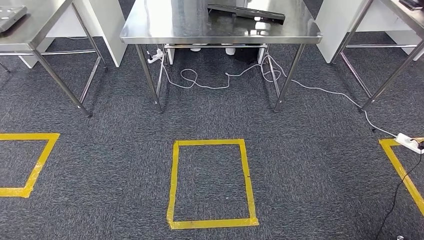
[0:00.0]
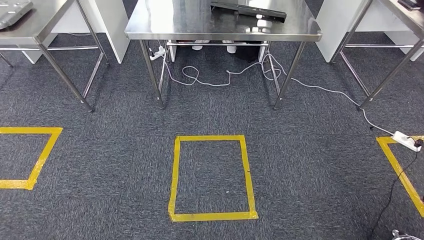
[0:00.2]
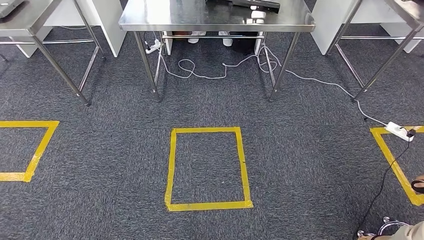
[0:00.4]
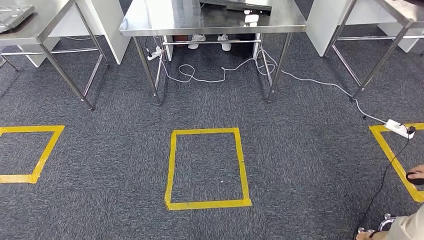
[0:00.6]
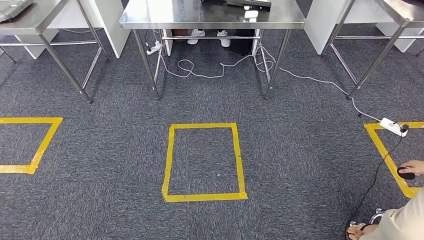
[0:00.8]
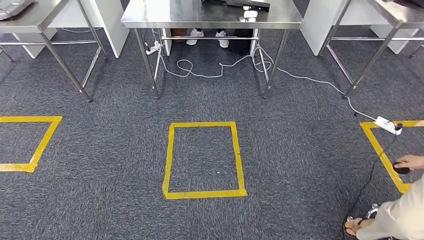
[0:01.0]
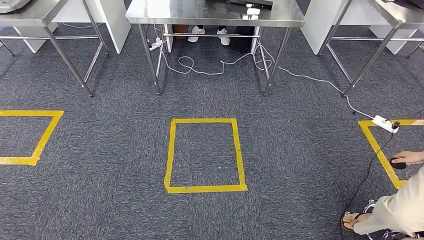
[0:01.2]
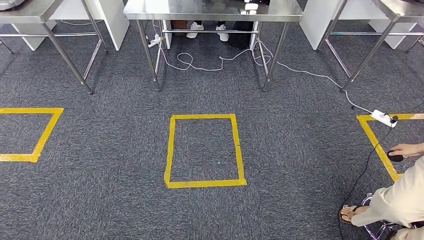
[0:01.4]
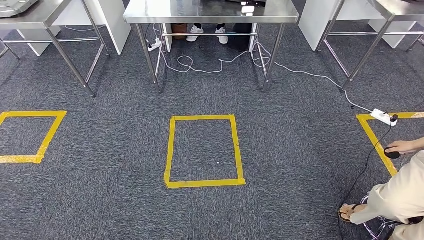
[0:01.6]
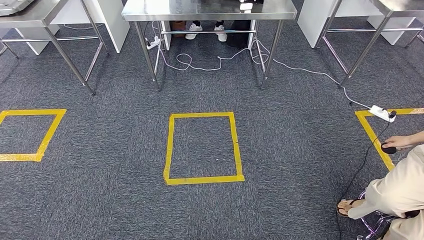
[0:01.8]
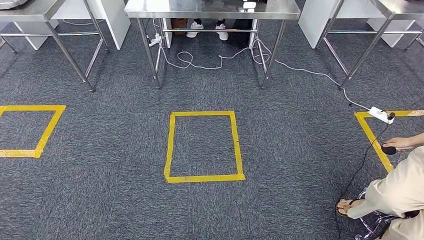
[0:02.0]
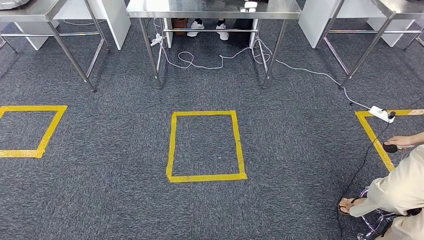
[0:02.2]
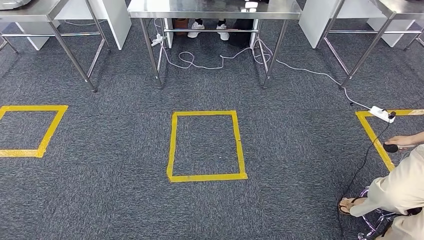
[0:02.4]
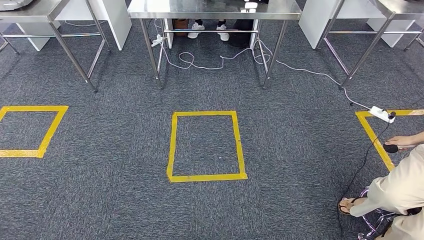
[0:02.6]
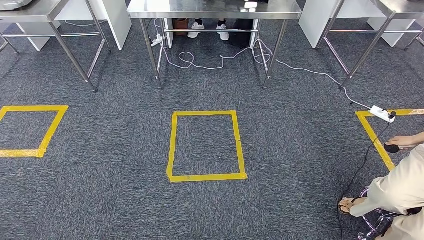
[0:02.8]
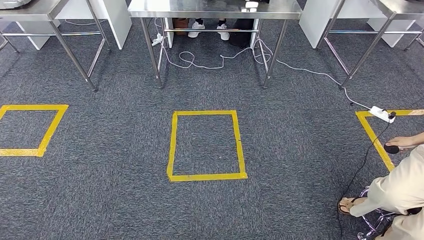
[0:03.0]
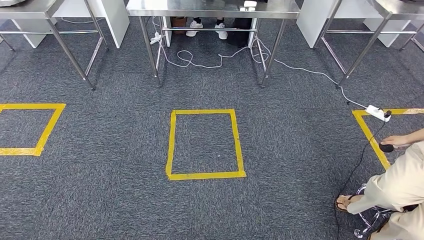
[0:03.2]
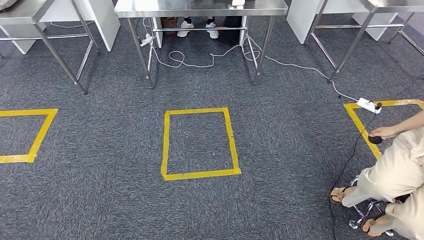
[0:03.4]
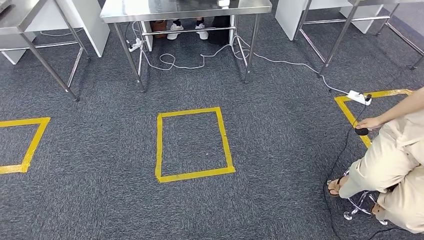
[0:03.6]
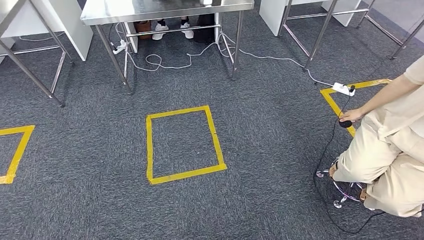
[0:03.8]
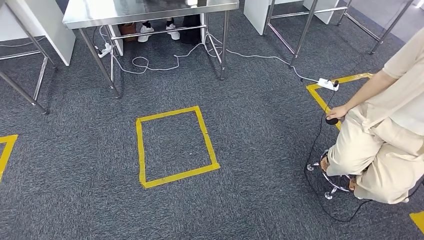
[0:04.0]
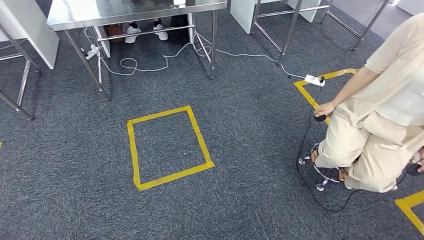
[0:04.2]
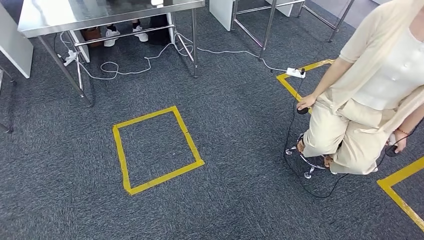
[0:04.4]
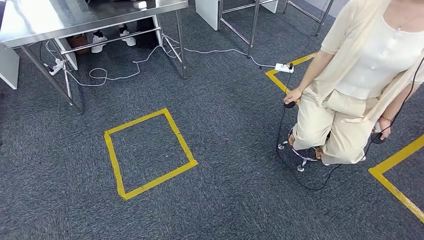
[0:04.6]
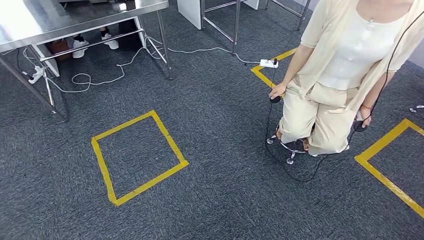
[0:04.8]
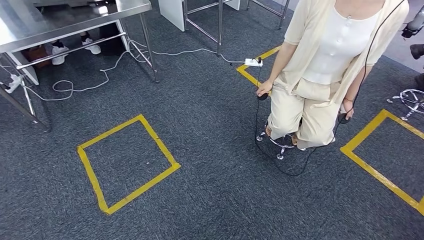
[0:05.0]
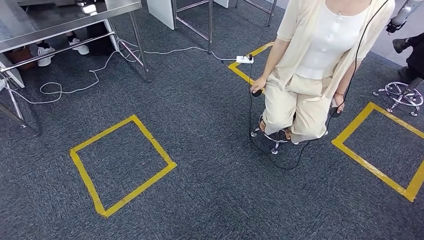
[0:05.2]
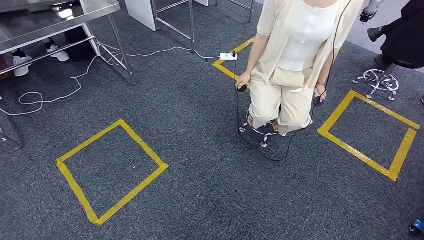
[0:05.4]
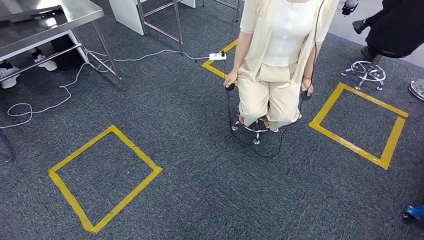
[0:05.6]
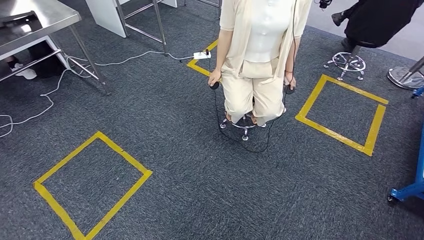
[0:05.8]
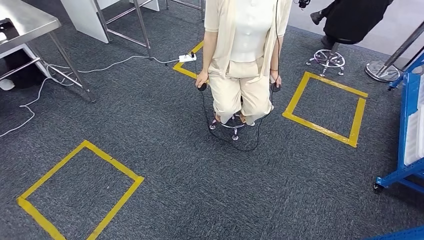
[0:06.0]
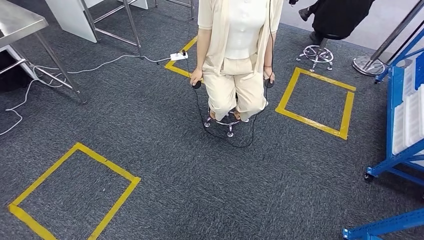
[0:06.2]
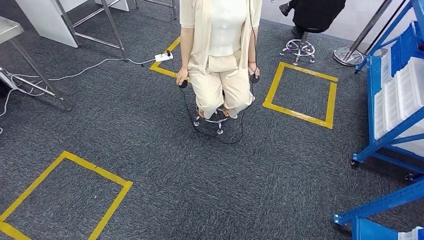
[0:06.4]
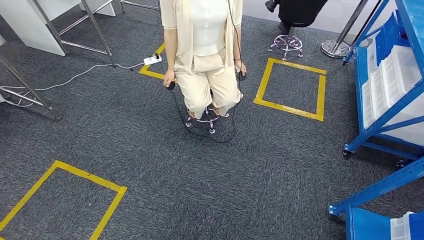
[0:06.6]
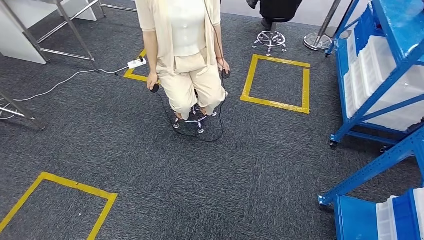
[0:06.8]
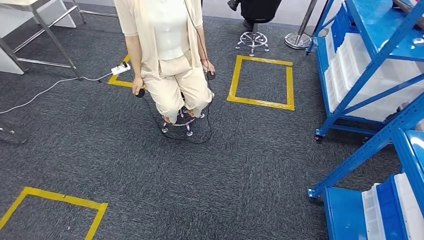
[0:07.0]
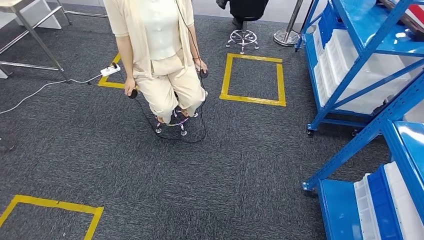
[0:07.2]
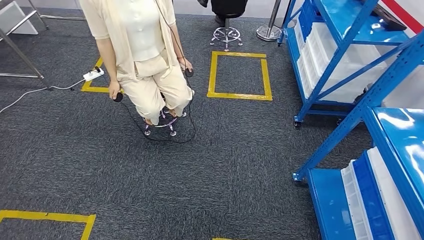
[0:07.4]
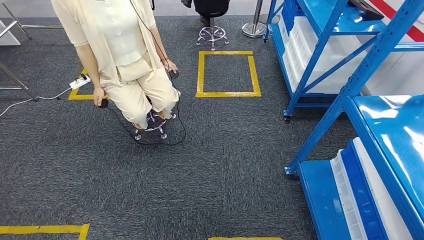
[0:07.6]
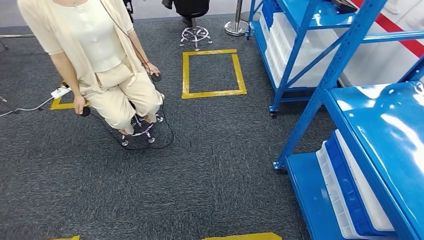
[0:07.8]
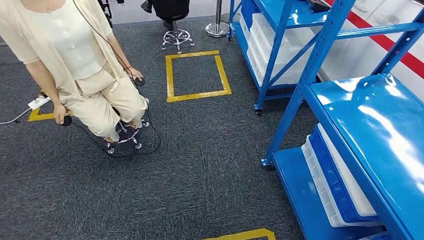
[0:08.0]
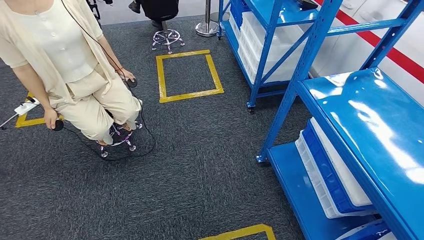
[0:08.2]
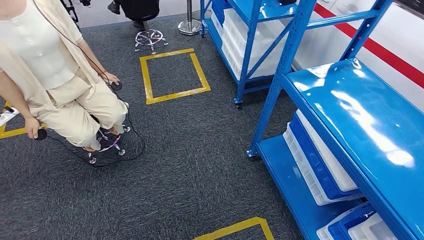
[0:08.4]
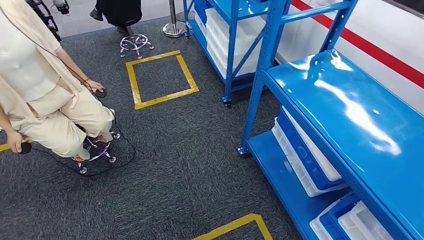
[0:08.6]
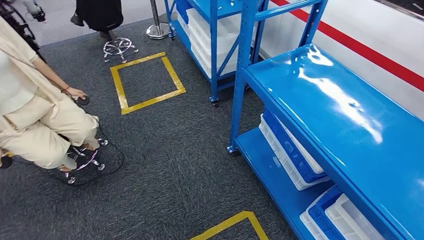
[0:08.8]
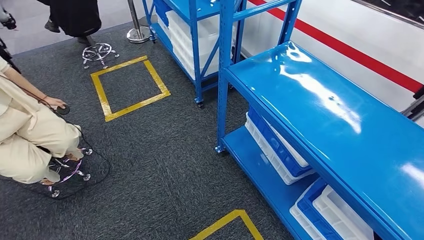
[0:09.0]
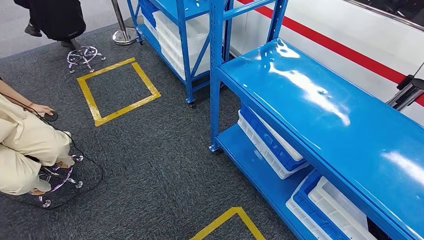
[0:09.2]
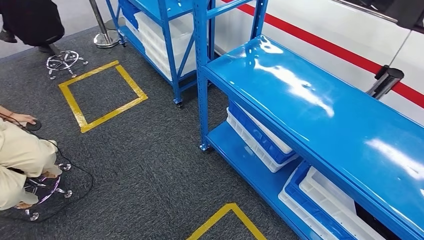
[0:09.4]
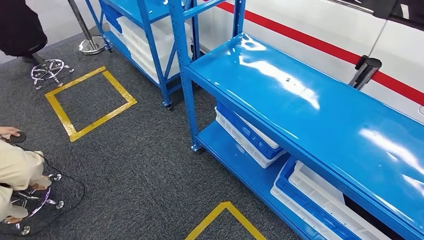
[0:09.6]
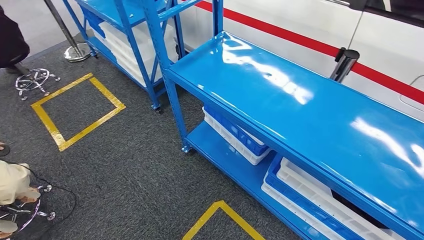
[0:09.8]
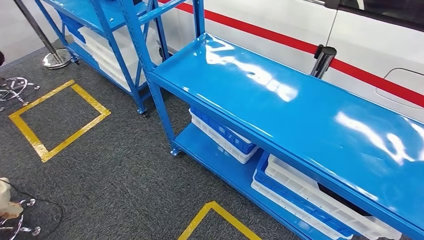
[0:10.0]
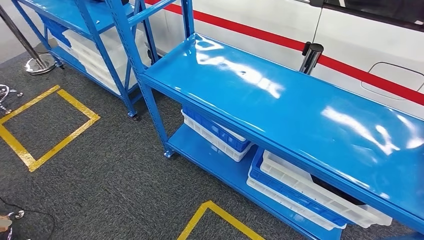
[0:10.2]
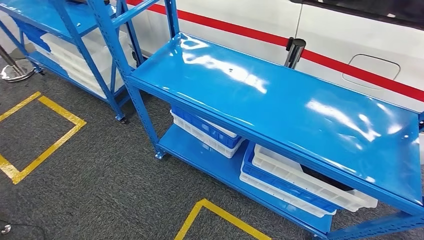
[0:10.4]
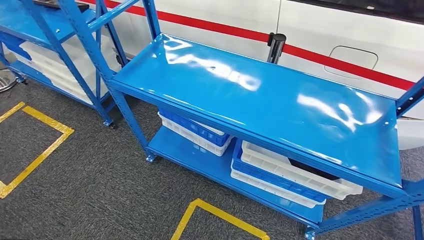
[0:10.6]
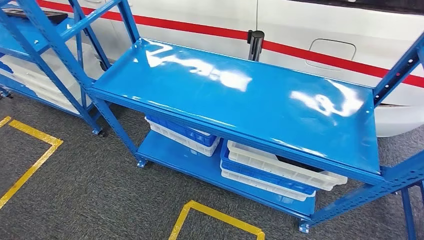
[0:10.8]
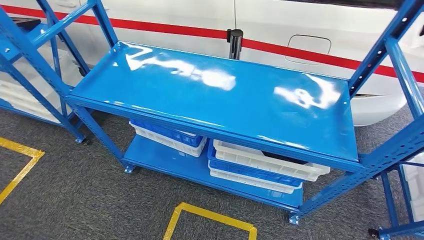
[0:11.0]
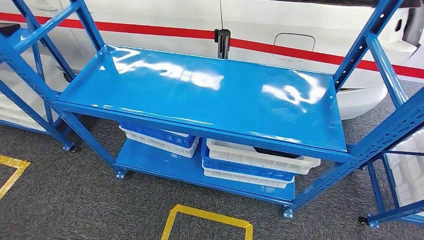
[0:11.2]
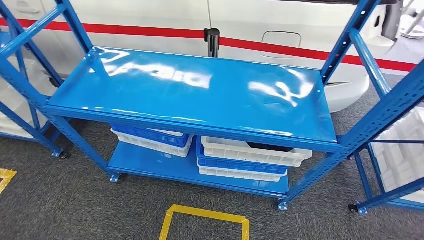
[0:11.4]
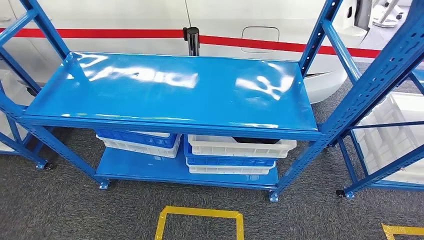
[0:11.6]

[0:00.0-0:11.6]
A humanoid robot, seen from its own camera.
0:01.4 to 0:02.8: Both hands stay put.

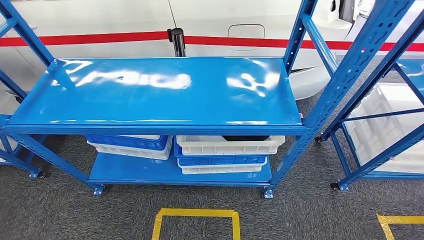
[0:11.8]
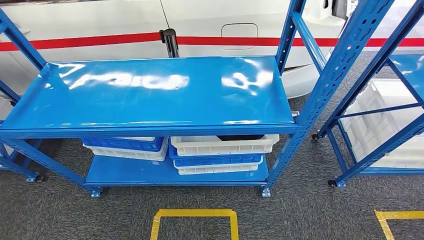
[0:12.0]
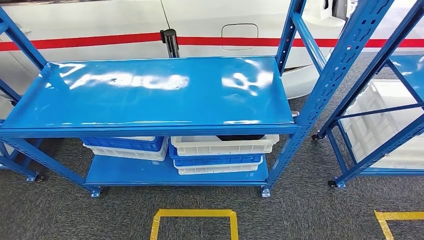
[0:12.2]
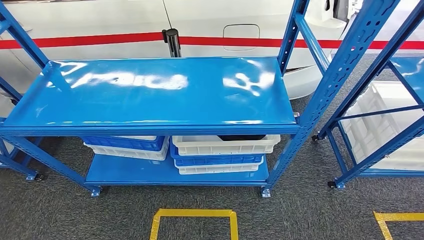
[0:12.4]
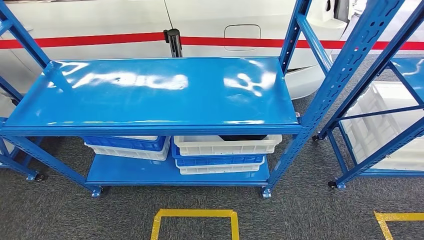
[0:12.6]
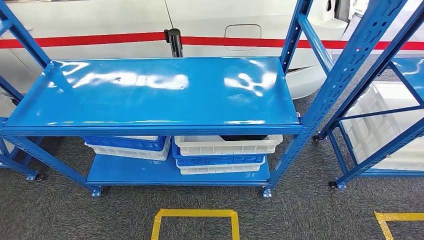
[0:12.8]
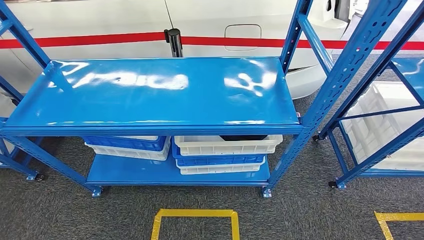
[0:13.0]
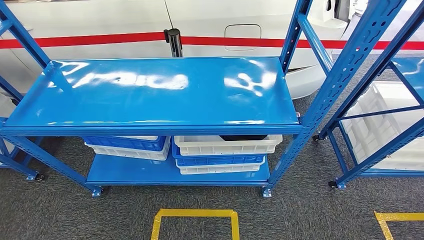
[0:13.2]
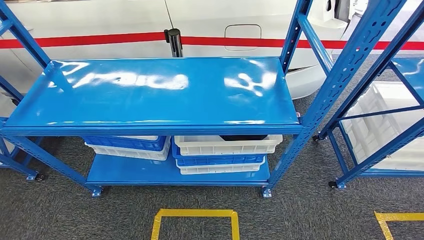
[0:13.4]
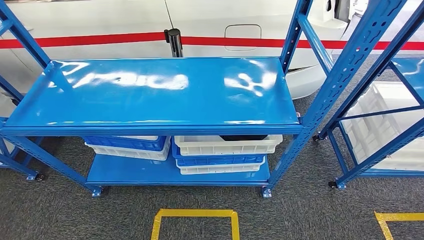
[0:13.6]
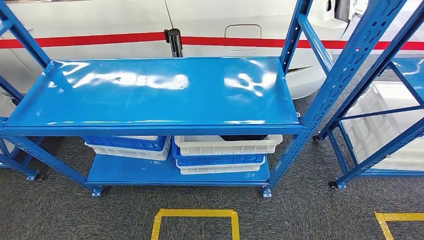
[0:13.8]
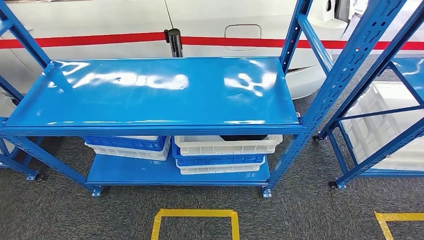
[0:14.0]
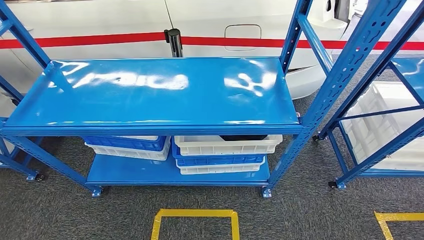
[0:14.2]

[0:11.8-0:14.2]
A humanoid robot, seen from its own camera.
Step, 0:11.8 to 0:14.2: Move to the initial position of the shelf.
0:11.8 to 0:13.0: Both hands stay about where they are.
